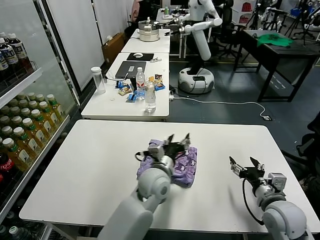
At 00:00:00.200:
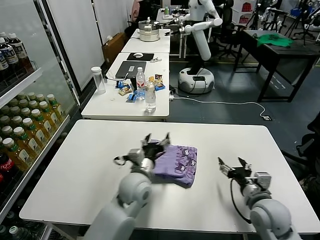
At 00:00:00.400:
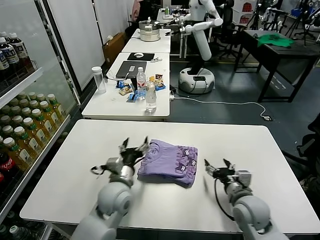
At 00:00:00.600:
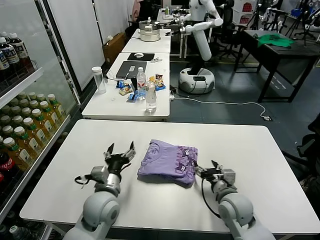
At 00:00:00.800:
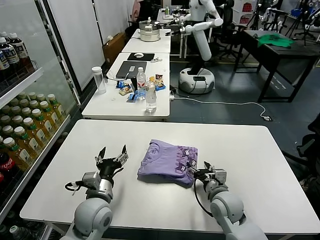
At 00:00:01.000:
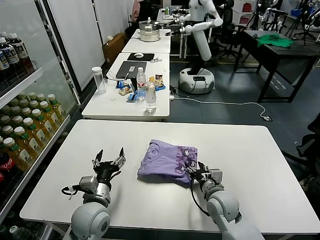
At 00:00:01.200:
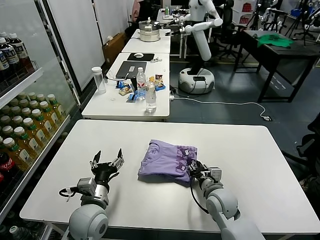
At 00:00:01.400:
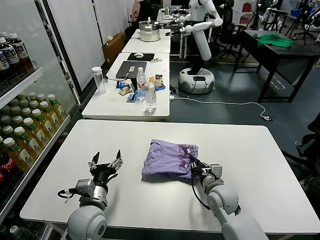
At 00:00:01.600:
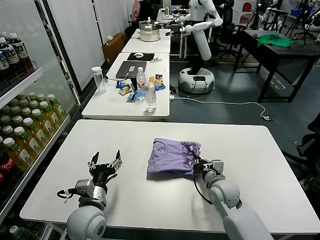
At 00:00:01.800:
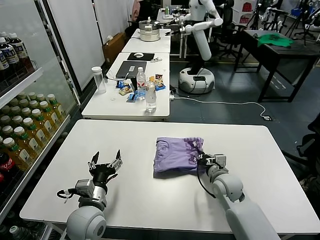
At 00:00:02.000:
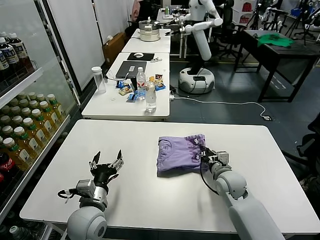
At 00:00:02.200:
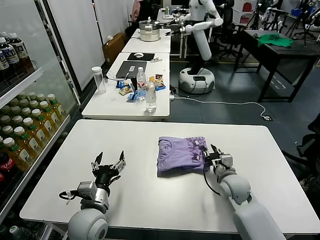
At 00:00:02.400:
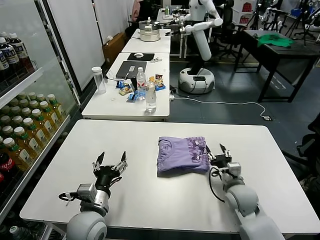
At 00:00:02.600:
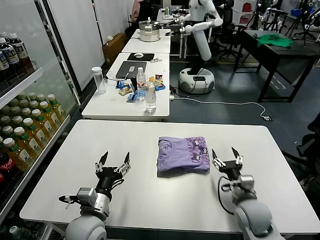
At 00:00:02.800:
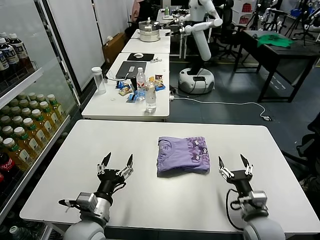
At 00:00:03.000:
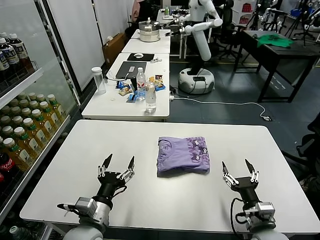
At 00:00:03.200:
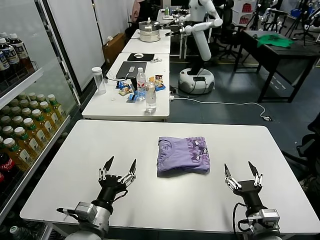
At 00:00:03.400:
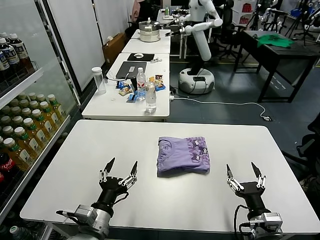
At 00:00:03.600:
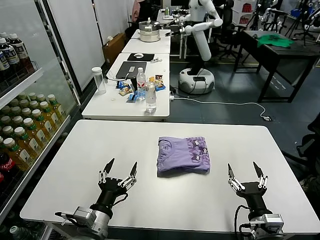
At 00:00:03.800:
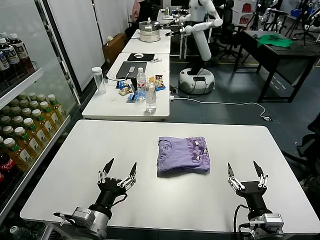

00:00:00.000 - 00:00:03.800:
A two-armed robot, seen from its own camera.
Task of the whole recording: fold and organize the clothes.
Step, 00:00:00.200 - 00:00:02.400: Drag the clothes to the center of the table.
00:00:00.000 - 00:00:01.200: The right gripper shifts some 15 cm to the left, downward and forward, and closes its fingers. The left gripper shifts roughly 20 cm to the left and backward.
00:00:01.200 - 00:00:02.600: The right gripper travels to the right by about 10 cm, moves some 5 cm forward and comes back, and closes, then opens again.
00:00:02.600 - 00:00:03.800: The right gripper heads backward, covering approximately 15 cm; the left gripper moves backward, some 5 cm.
